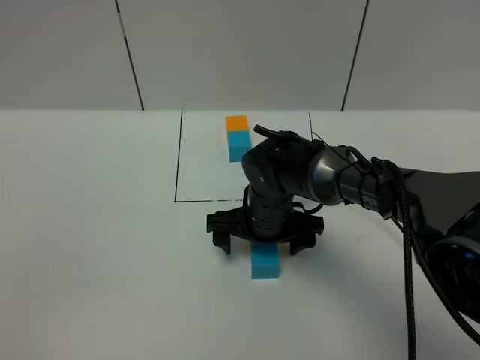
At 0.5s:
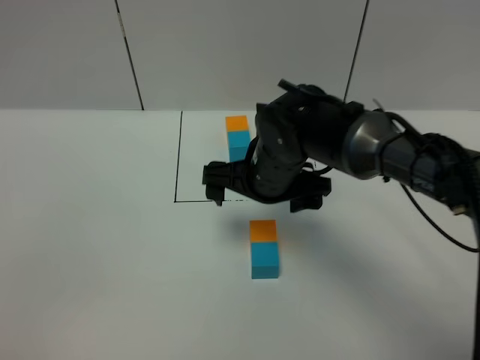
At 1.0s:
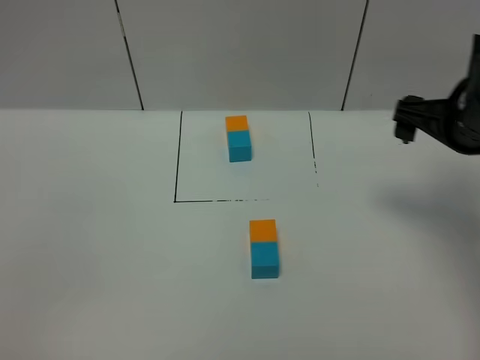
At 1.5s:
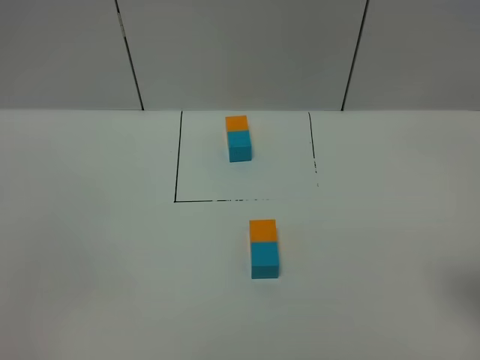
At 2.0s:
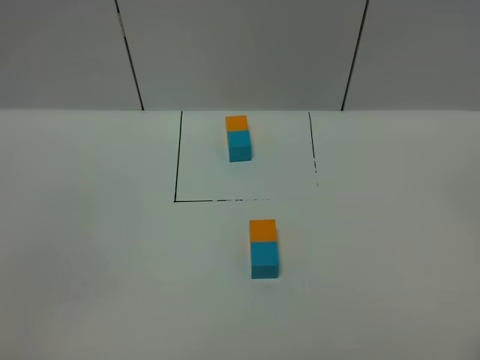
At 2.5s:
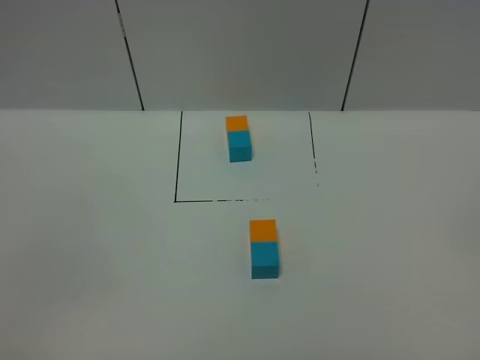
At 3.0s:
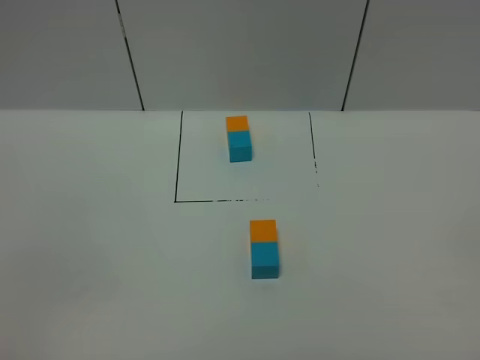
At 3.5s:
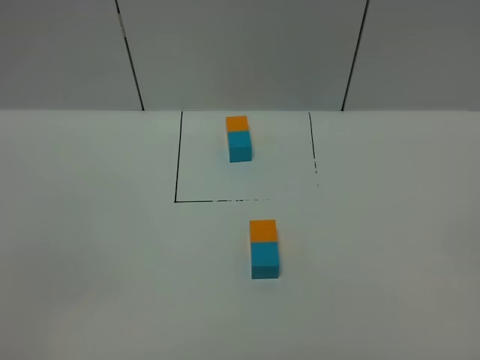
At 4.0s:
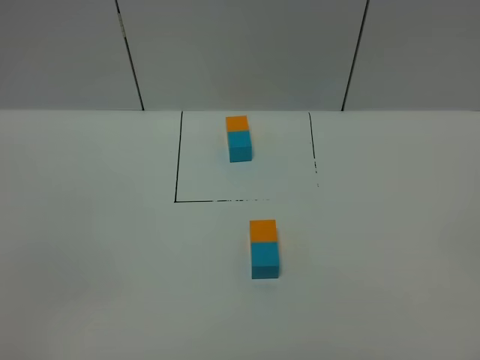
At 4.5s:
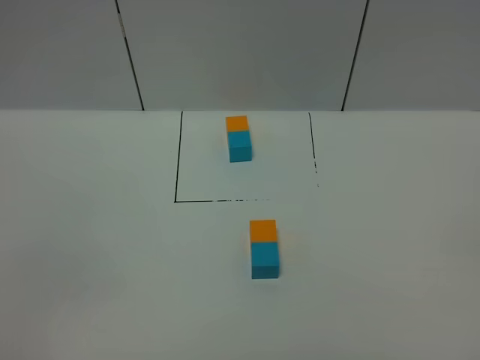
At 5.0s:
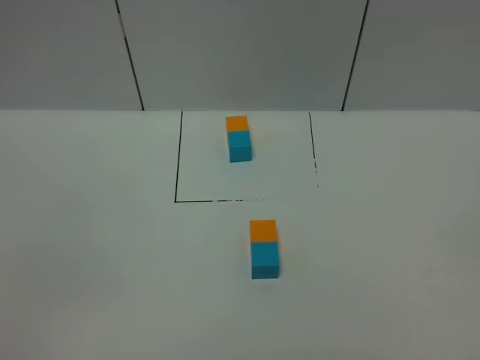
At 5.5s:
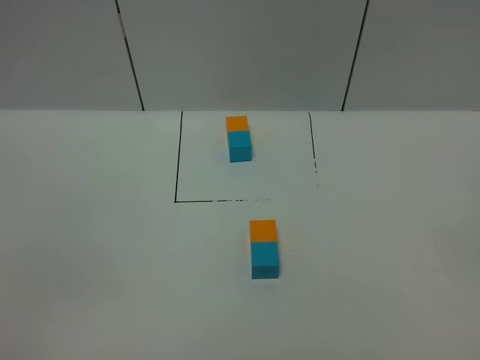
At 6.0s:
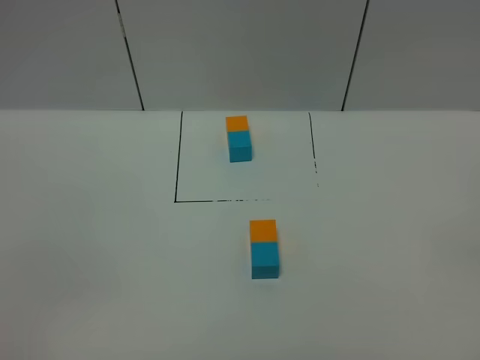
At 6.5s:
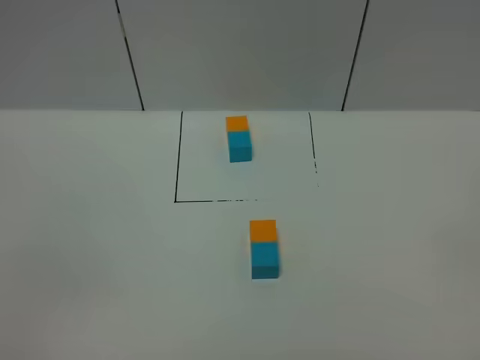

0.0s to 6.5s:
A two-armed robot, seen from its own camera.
Task of the whole recording: According to the building block template in front, assemble the scattered blocks together.
0.0s to 2.0s: The right gripper goes about 40 cm backward, to the right and upward.
